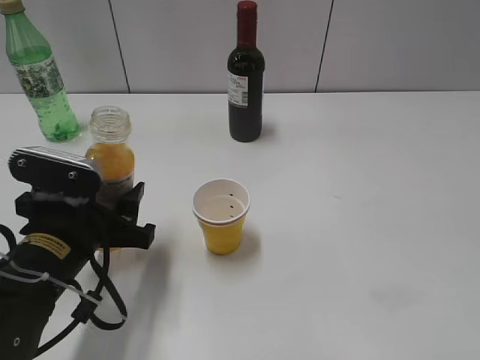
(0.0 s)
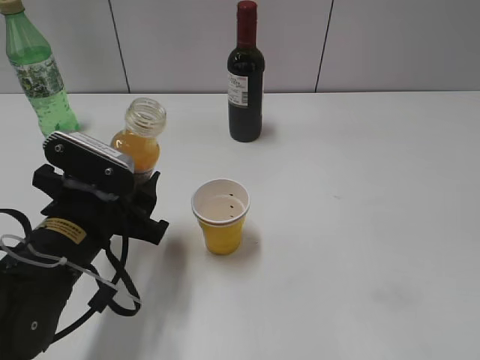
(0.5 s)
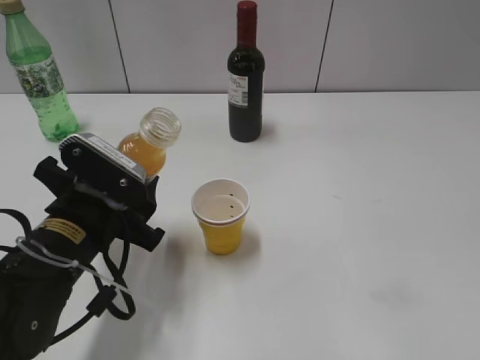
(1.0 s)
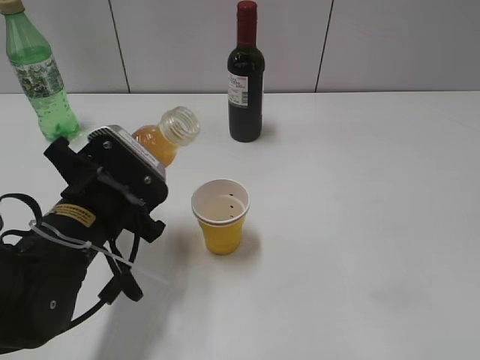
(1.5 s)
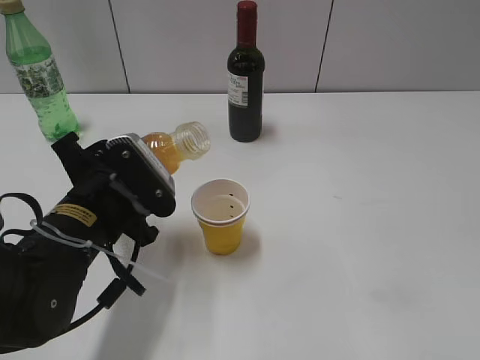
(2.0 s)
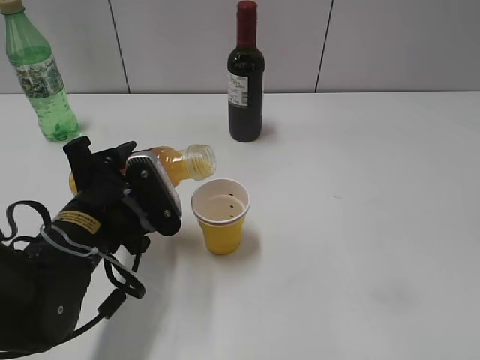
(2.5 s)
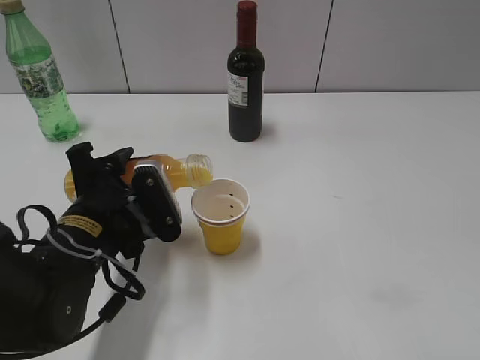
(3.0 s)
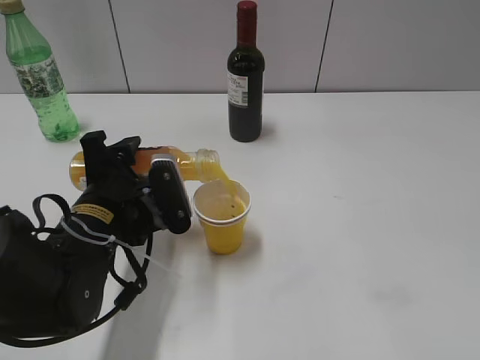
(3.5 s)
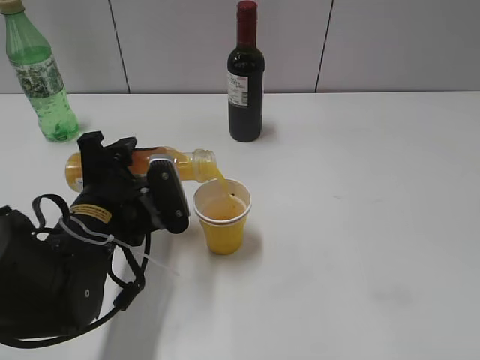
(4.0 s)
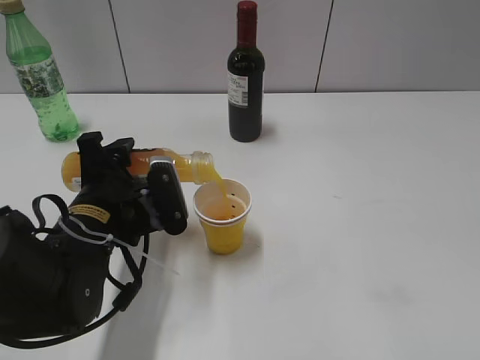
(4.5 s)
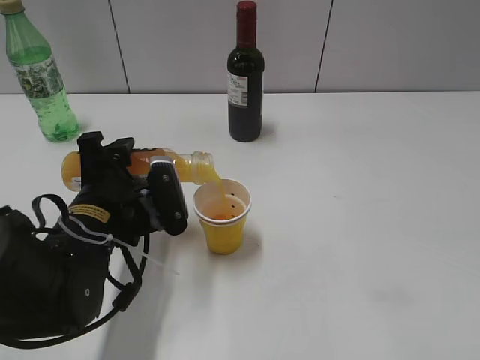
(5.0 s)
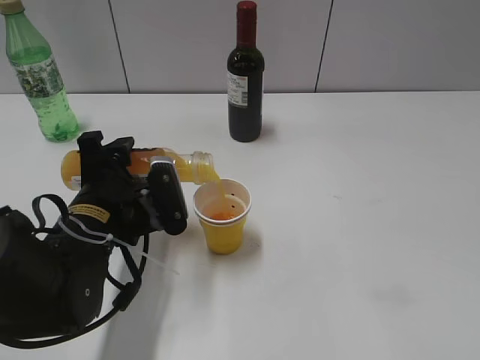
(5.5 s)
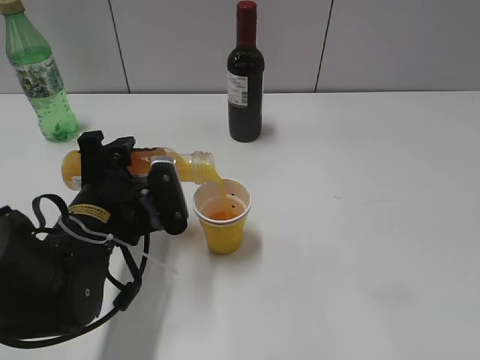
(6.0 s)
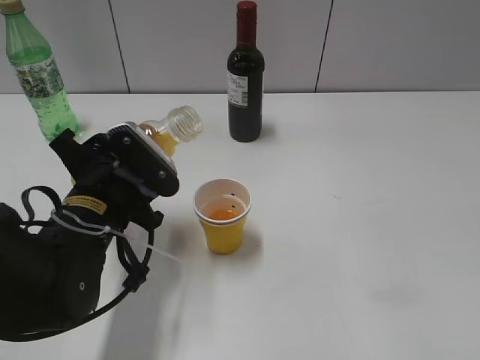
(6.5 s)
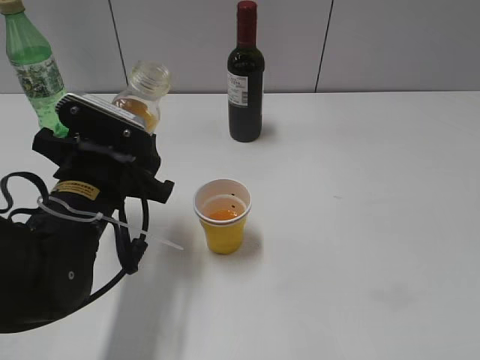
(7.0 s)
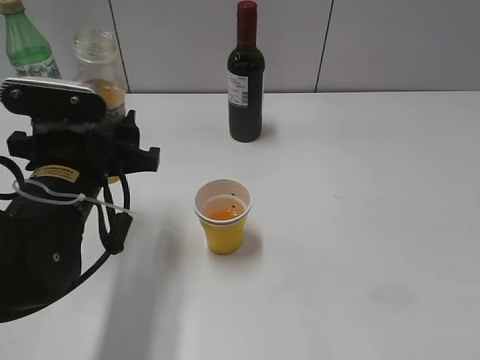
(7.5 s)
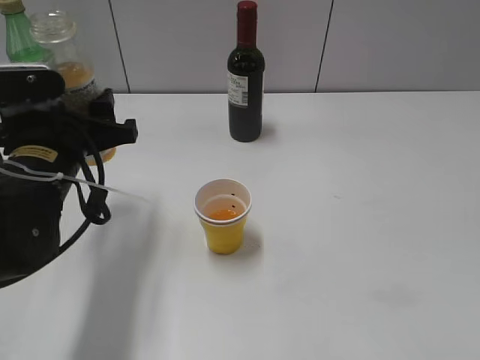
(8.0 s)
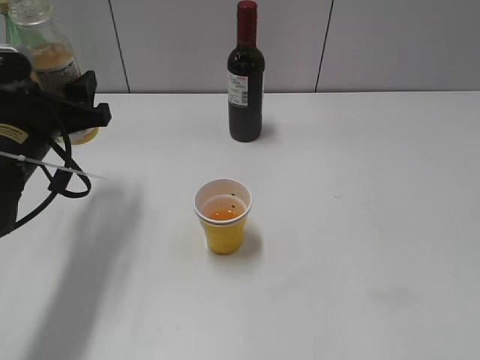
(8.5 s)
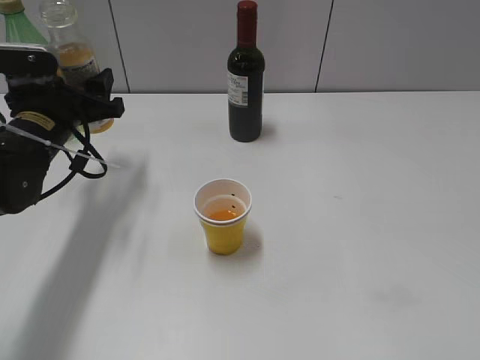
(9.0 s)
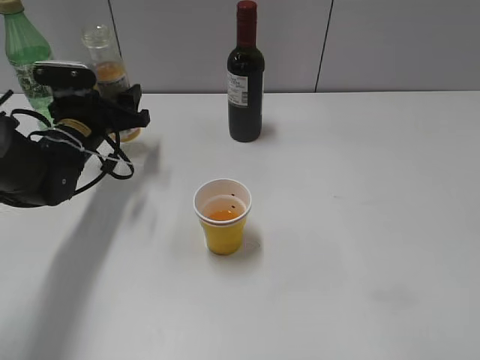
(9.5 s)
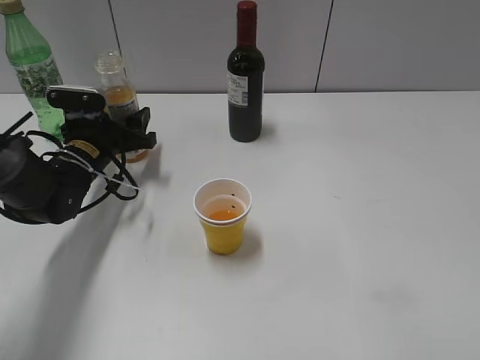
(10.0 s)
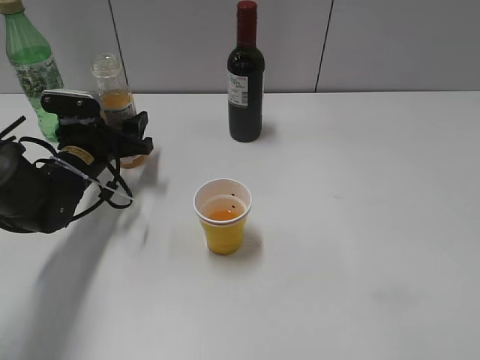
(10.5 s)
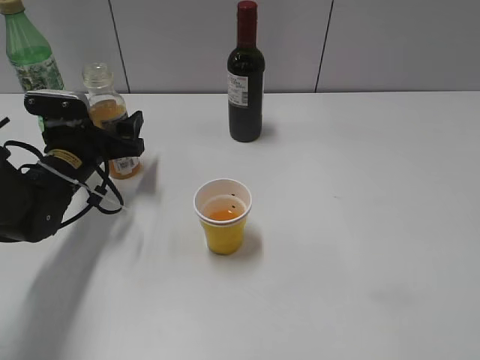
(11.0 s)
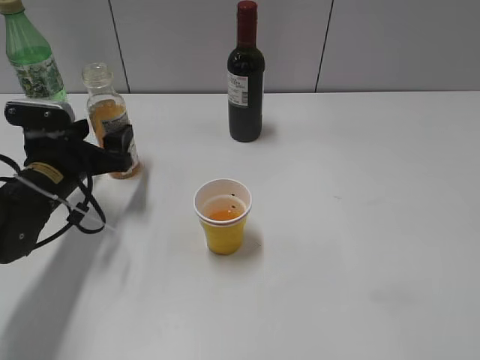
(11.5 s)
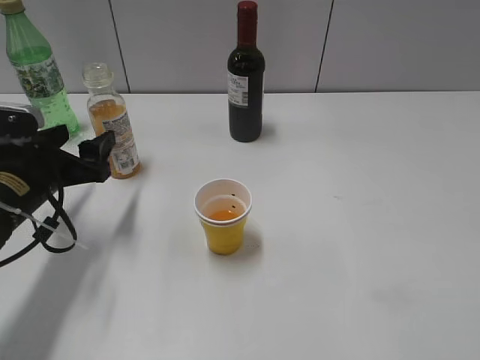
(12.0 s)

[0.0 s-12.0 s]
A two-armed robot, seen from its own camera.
Step, 0.0 to 6.0 s: Pour the orange juice from bottle to cup with left gripper.
Step, 6.5 to 11.5 s: Place the orange juice bottle on the table with left gripper.
4.0 to 6.0 s: Neither gripper changes place.
6.0 to 8.0 s: The left gripper heads upward, covering approximately 5 cm.
8.0 to 10.0 s: The left gripper is displaced forward and downward by roughly 15 cm.
10.0 to 12.0 s: The left gripper heads backward, covering roughly 10 cm.

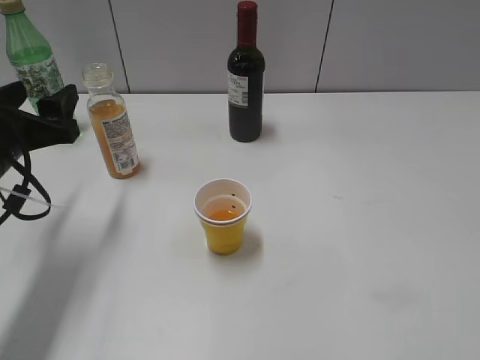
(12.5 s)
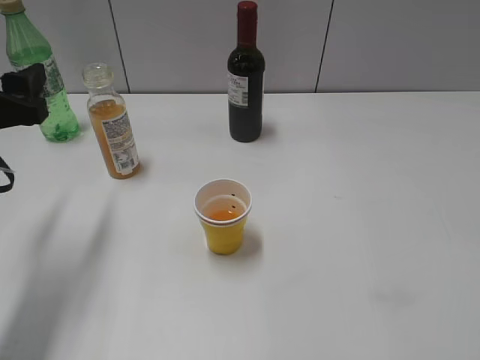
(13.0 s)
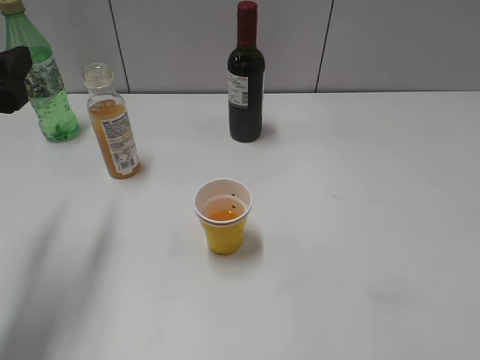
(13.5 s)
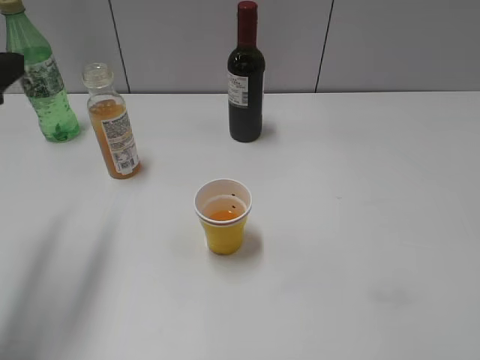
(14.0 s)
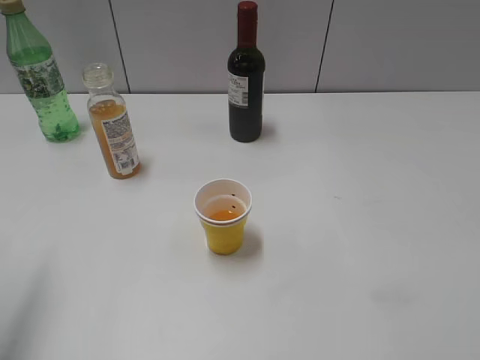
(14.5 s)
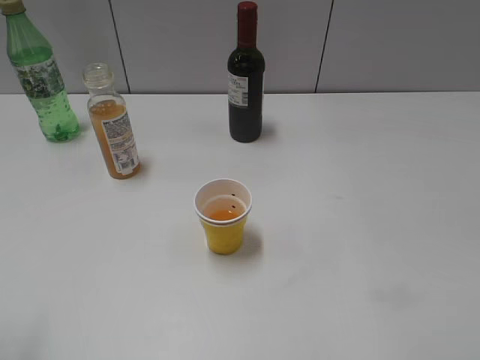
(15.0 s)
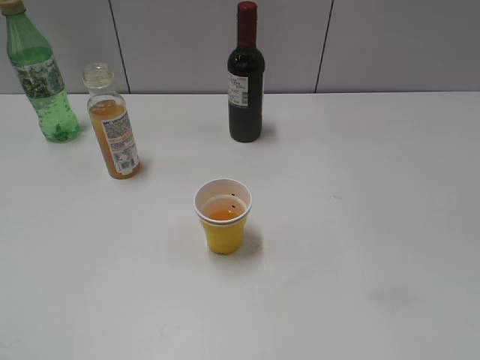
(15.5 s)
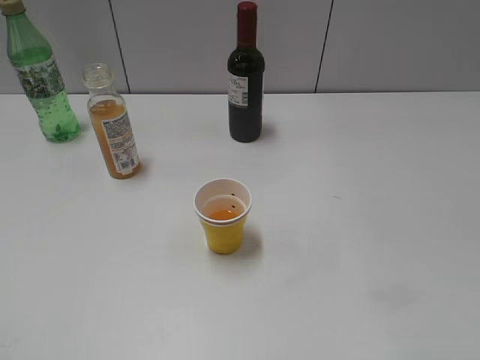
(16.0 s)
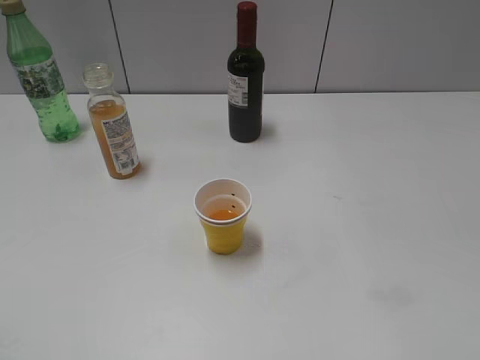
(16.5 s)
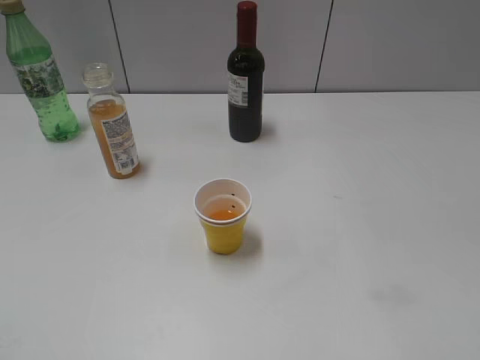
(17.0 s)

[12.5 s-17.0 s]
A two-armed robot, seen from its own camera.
12.5 to 14.5 s: The left gripper shifts roughly 20 cm upward and backward.
14.5 to 17.0 s: The left gripper moves backward, roughly 20 cm.

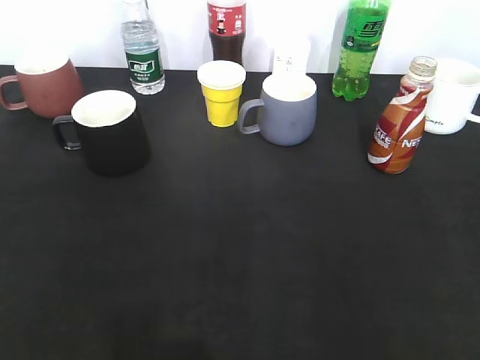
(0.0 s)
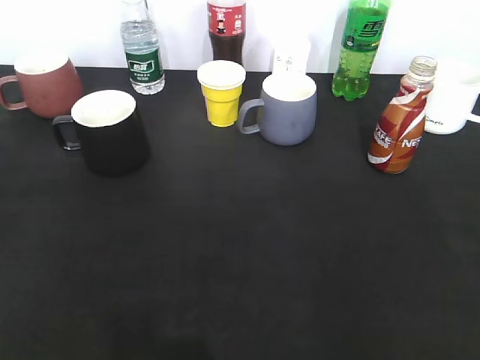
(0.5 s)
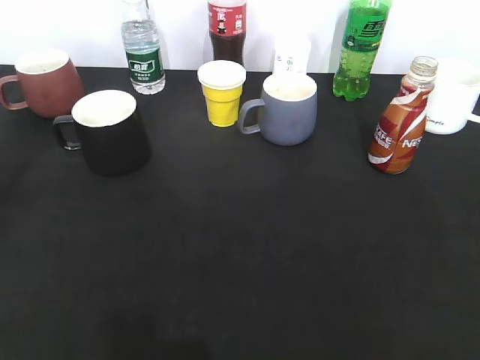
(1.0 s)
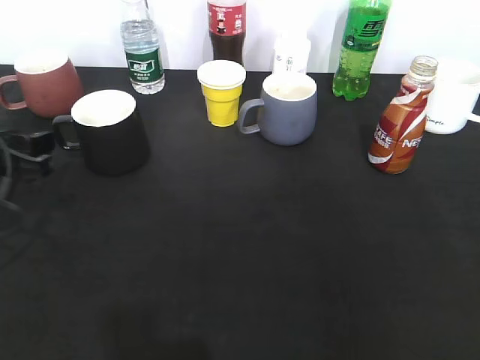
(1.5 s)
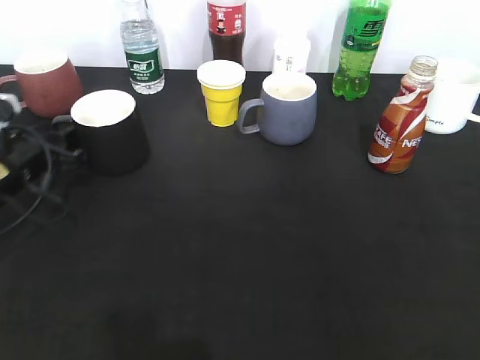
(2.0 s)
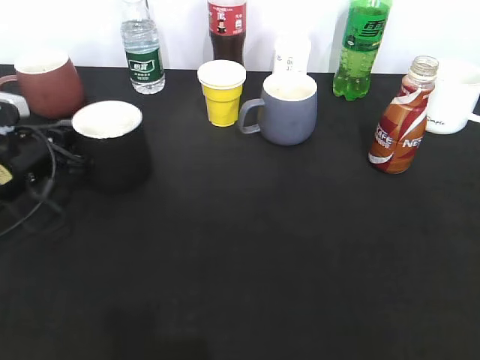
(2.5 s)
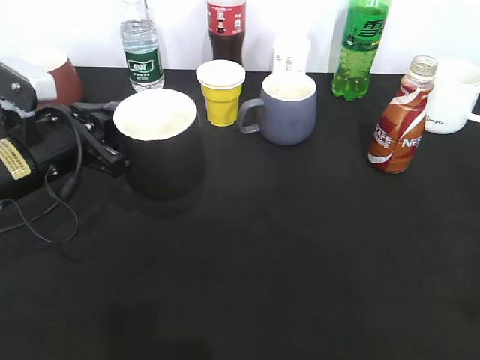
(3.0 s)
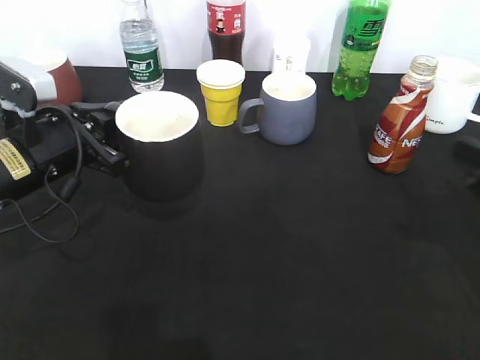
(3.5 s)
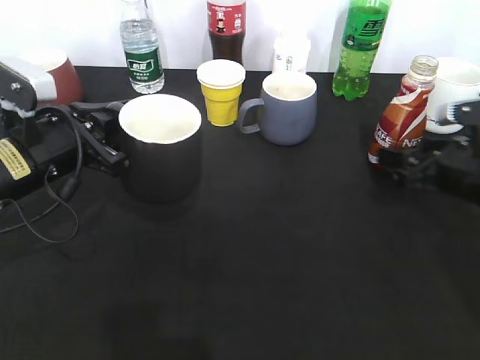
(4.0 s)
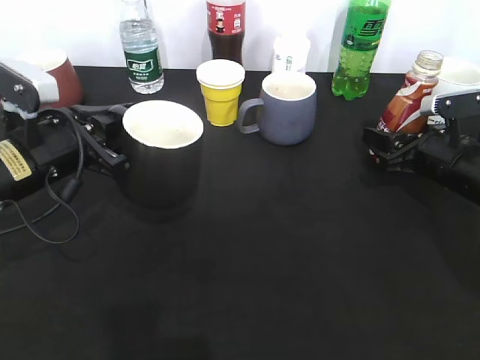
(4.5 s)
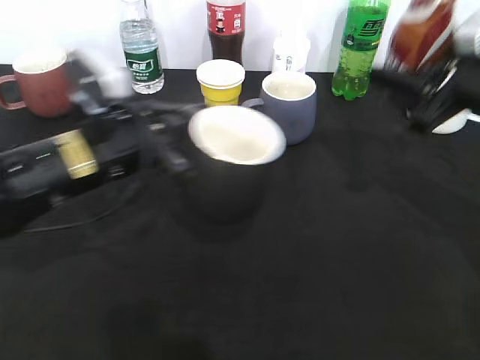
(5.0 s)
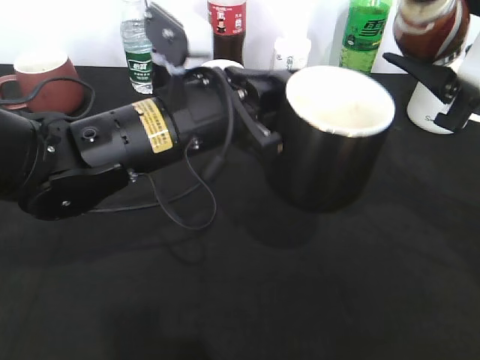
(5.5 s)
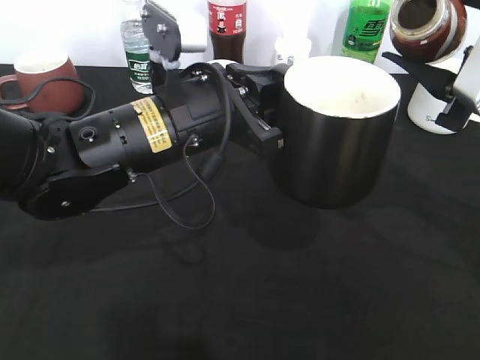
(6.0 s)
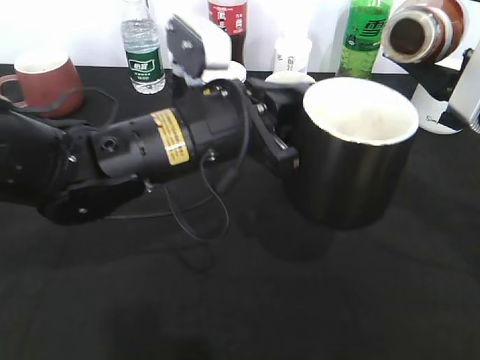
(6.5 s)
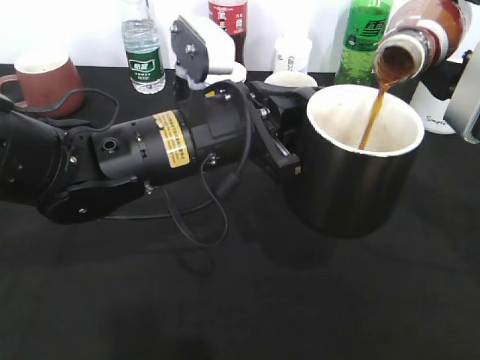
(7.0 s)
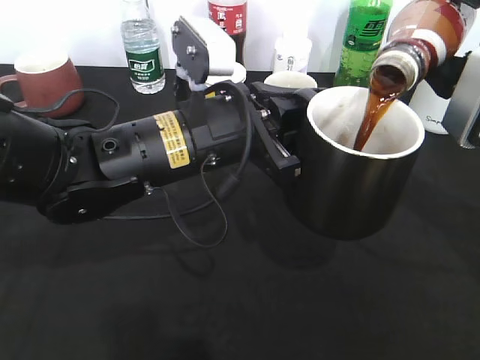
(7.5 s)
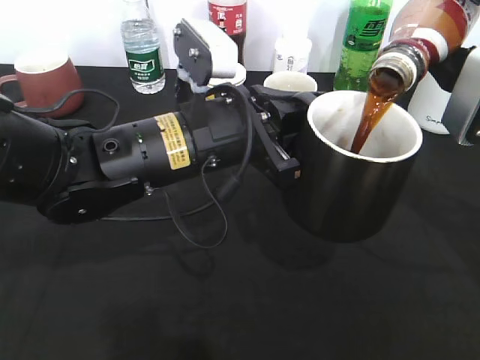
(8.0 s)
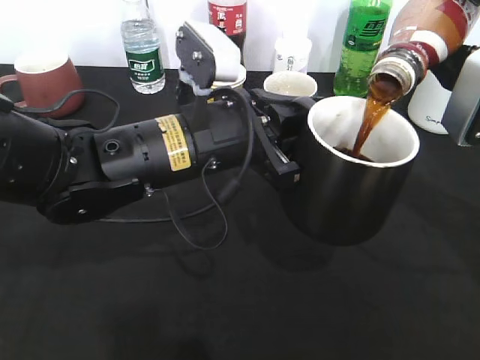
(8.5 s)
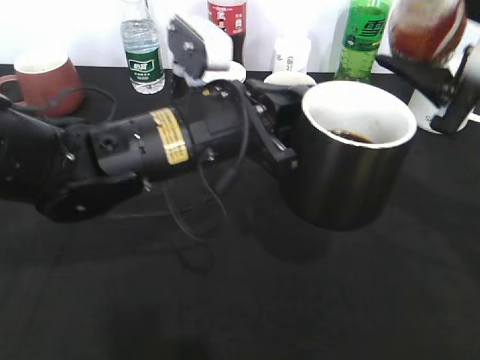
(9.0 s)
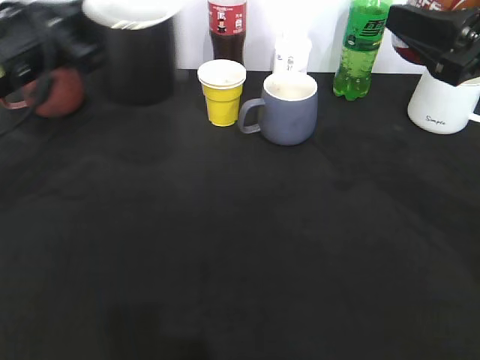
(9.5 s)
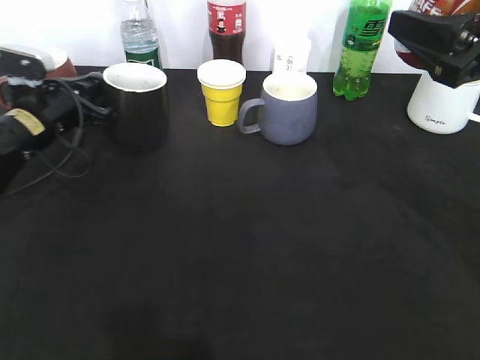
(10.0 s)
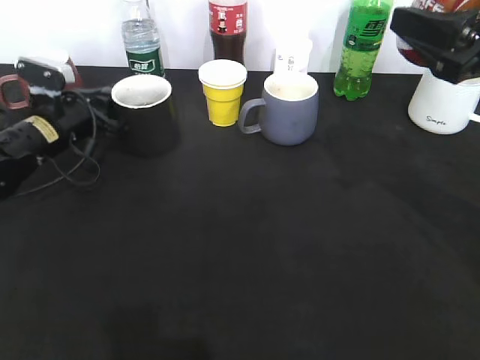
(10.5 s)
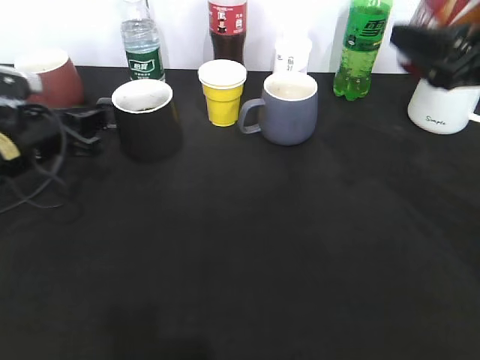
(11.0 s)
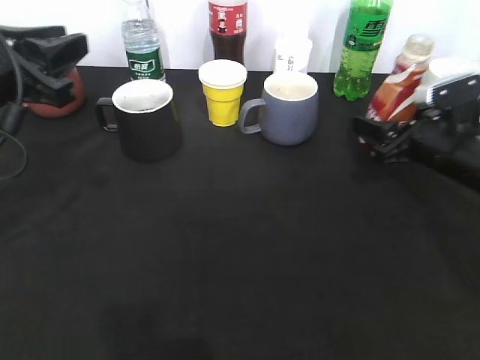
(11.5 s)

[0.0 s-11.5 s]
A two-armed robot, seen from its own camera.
Step, 3.0 to 4.0 s: Grasp the bottle with coffee with right gripper.
Step, 4.5 to 9.0 s: Pour the coffee from bottle to cup with right gripper.
Step, 9.5 to 11.0 s: Place the black cup on the table with left gripper.
0.0 to 2.0 s: The left gripper heads forward and downward, covering about 35 cm.
2.0 to 4.0 s: The left gripper shifts about 5 cm to the right, and closes its fingers; the right gripper goes roughly 35 cm forward and downward, and opens its fingers.
4.0 to 6.0 s: The right gripper is displaced upward by about 15 cm, and closes, while the left gripper moves to the right, about 15 cm.
7.5 to 9.5 s: The left gripper travels to the left and forward by approximately 20 cm.
9.5 to 11.5 s: The left gripper is displaced backward by some 5 cm, travels downward and back again, approximately 15 cm each way, and opens; the right gripper travels downward and forward by some 20 cm.
